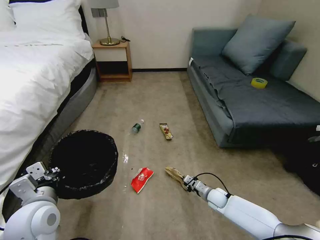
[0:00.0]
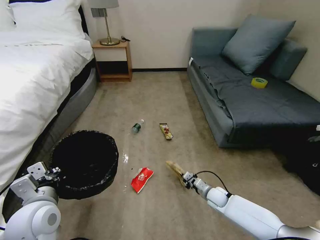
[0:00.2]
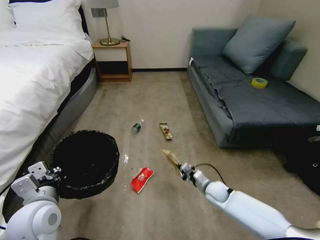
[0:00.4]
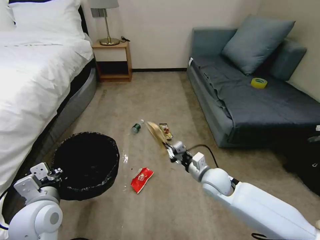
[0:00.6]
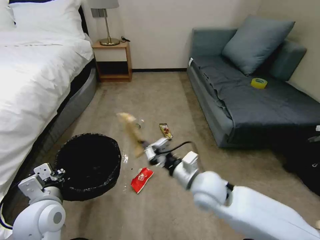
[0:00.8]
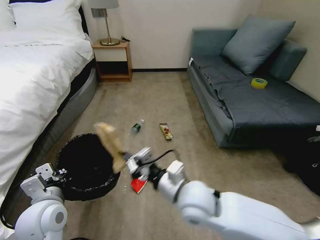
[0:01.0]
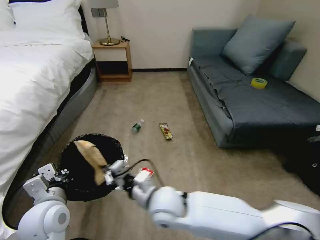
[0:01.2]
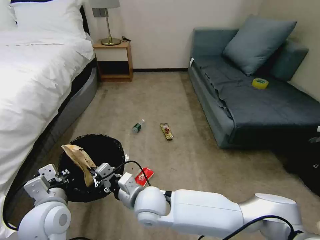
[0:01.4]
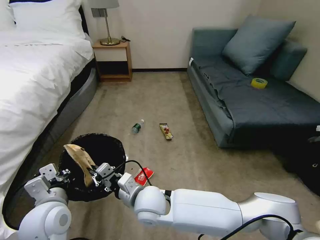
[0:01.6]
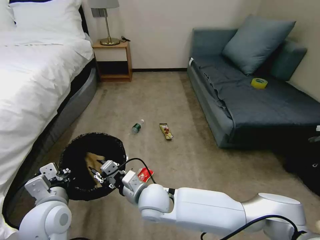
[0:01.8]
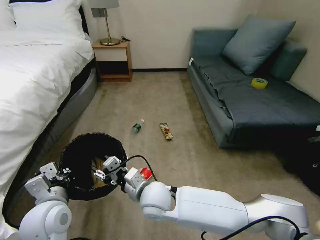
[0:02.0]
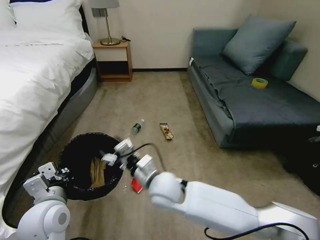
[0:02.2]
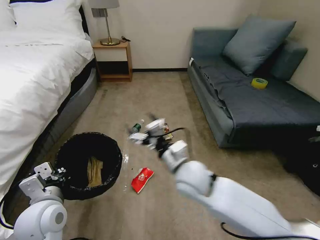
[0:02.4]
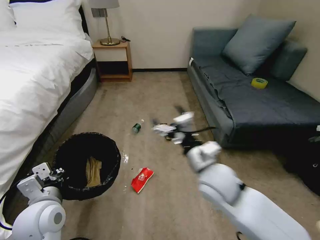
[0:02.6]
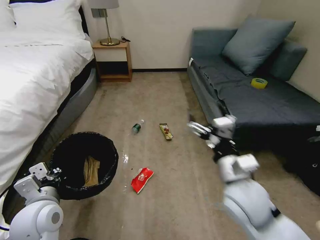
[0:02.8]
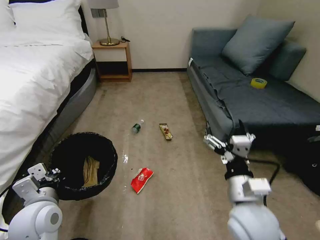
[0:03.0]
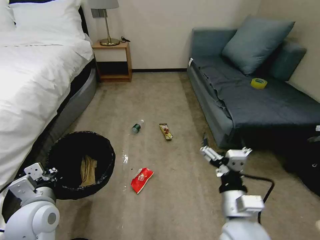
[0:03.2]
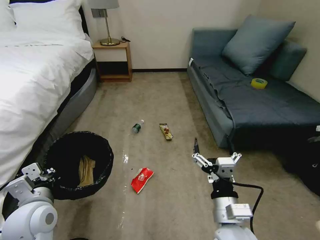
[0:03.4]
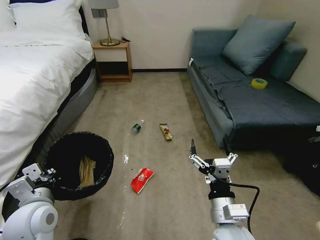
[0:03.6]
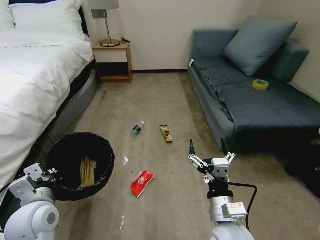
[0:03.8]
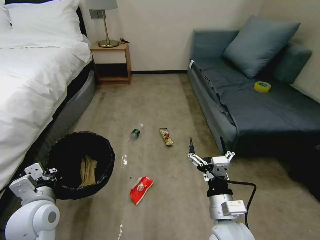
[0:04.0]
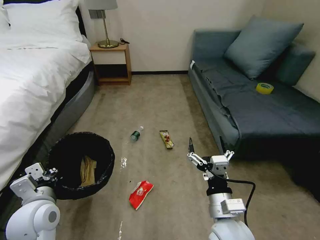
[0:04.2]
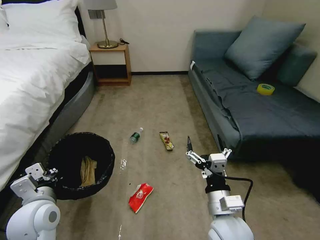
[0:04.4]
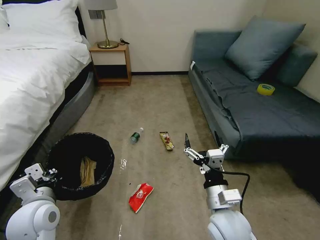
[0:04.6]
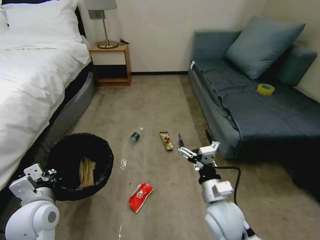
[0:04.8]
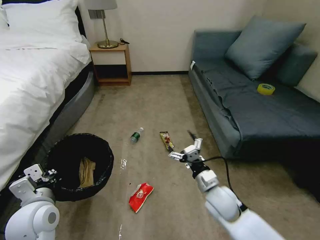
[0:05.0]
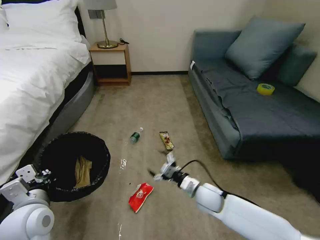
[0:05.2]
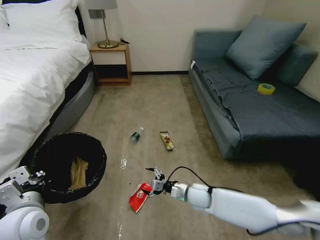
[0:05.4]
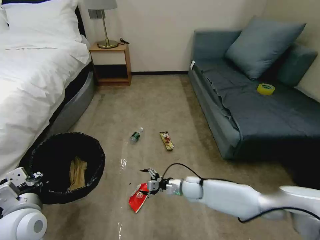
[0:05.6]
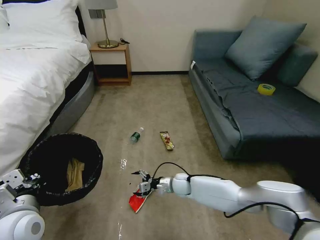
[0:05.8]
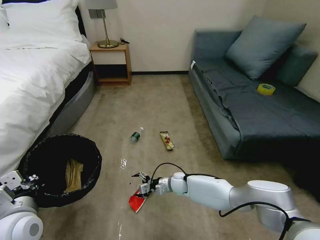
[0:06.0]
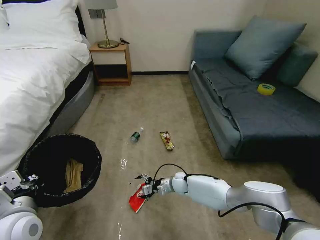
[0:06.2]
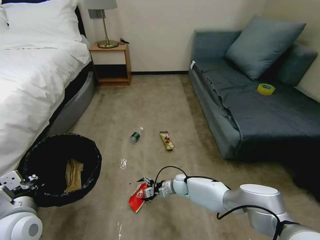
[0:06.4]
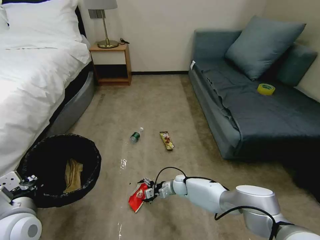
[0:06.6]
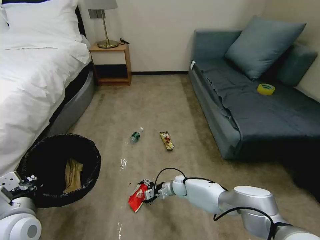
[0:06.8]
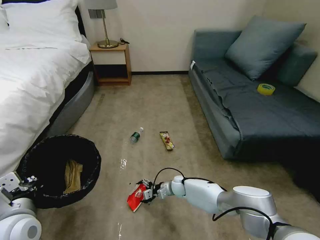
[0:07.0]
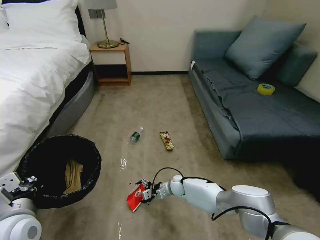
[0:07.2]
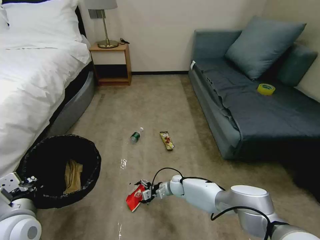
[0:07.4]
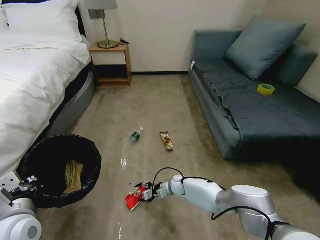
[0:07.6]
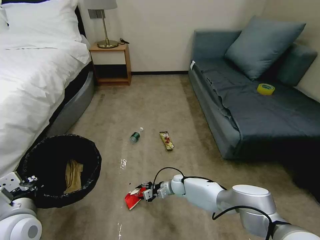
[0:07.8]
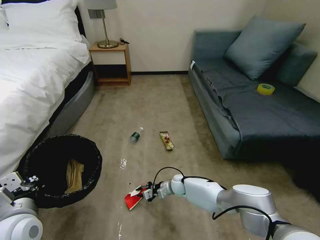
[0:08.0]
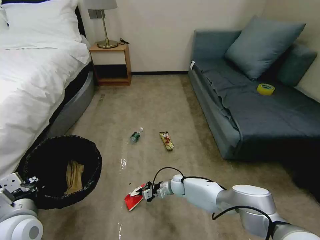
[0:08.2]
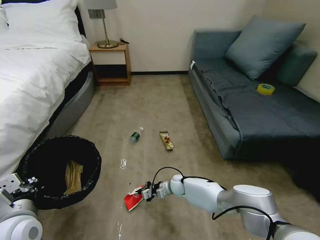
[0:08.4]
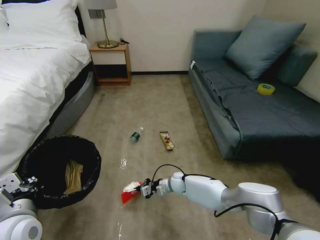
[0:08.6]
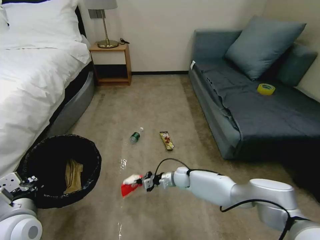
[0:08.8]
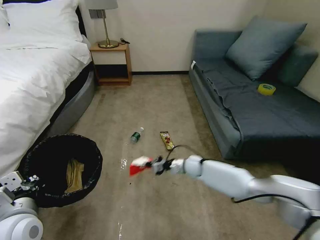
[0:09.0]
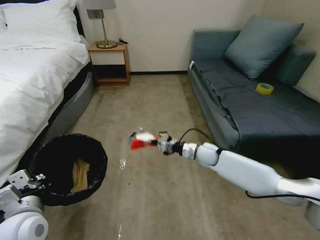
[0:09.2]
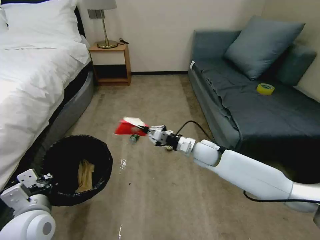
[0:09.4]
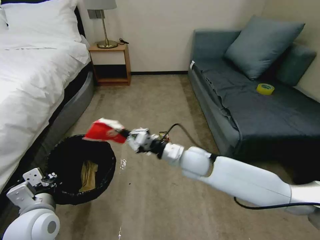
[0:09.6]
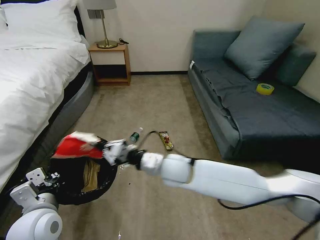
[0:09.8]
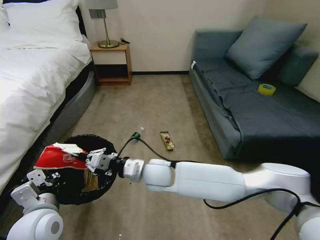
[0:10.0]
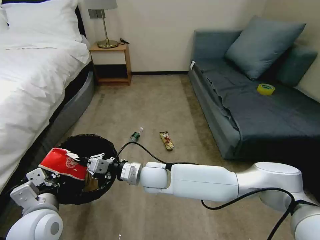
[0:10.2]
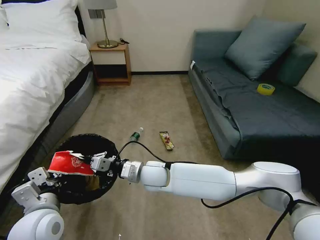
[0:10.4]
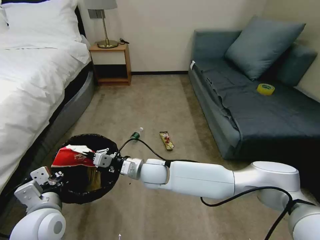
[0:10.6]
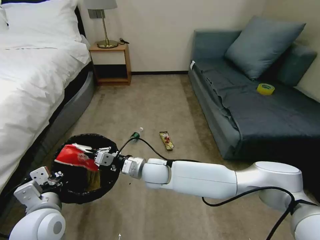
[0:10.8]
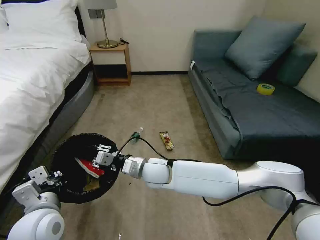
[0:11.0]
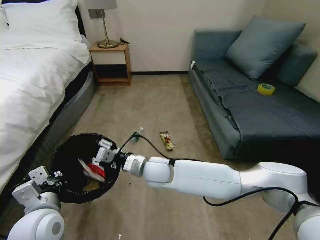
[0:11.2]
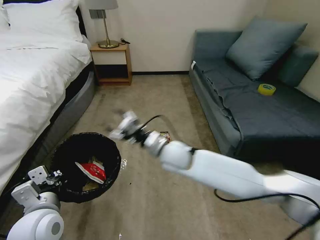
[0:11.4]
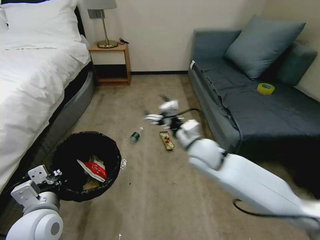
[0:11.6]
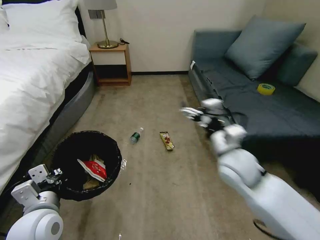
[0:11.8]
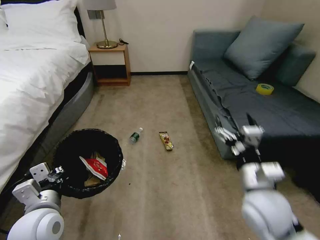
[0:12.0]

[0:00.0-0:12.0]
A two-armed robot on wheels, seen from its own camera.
Task of the whole recording: Pick up the trash bin, then pick up the garbage on the floor and place it into the trash bin.
0:00.0 to 0:01.6: The right gripper heads to the left and upward, covering some 40 cm.
0:01.6 to 0:03.0: The right gripper travels to the right by approximately 25 cm, and opens.
0:03.0 to 0:04.4: The right gripper travels downward by approximately 5 cm.
0:04.4 to 0:06.0: The right gripper moves forward and downward, some 35 cm.
0:06.0 to 0:07.6: The grippers make only small movements.
0:07.6 to 0:09.0: The right gripper travels upward and to the right by about 15 cm, and closes.
0:09.0 to 0:10.4: The right gripper heads to the left, upward and backward, covering about 25 cm.
0:10.4 to 0:12.0: The right gripper is displaced to the right and backward by roughly 30 cm, and opens.

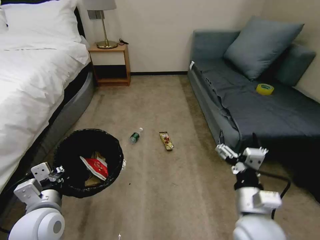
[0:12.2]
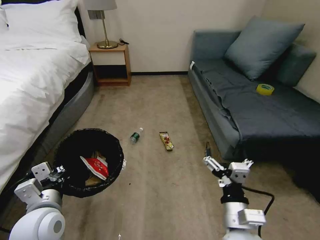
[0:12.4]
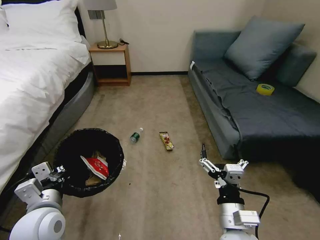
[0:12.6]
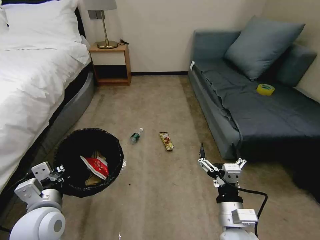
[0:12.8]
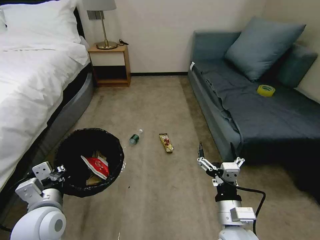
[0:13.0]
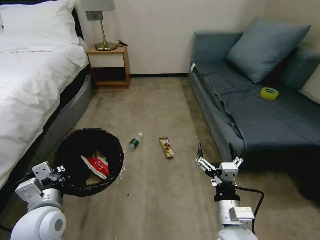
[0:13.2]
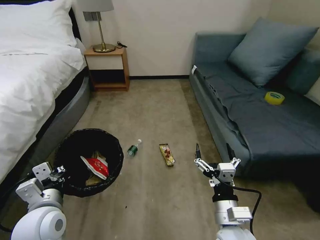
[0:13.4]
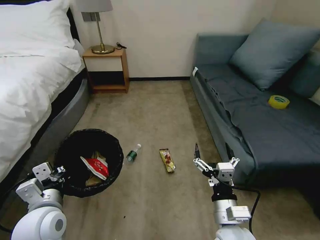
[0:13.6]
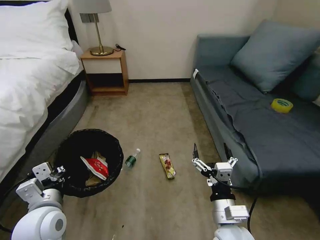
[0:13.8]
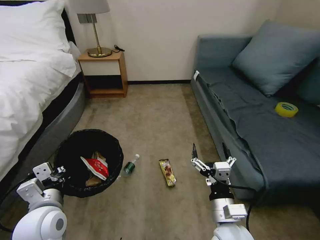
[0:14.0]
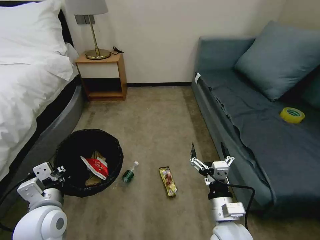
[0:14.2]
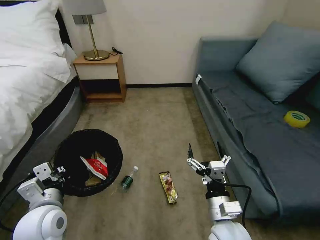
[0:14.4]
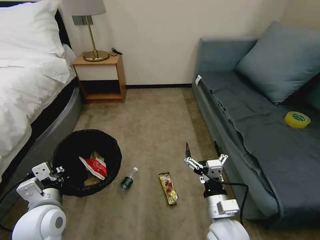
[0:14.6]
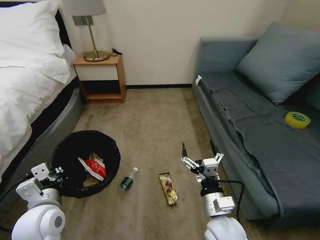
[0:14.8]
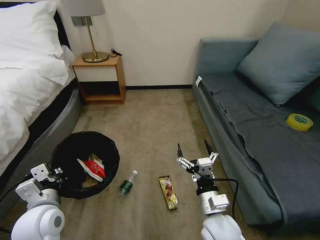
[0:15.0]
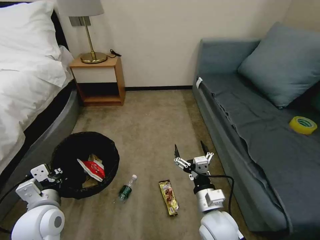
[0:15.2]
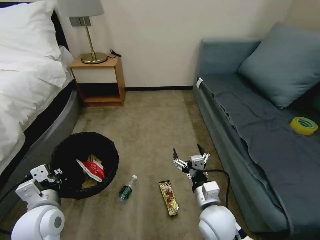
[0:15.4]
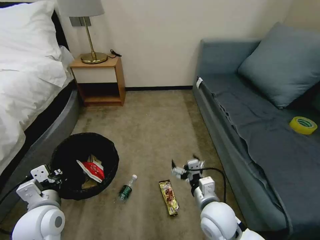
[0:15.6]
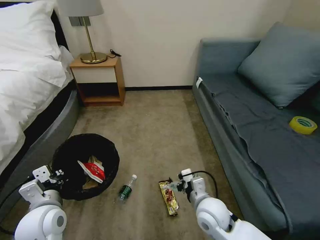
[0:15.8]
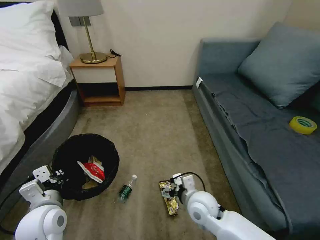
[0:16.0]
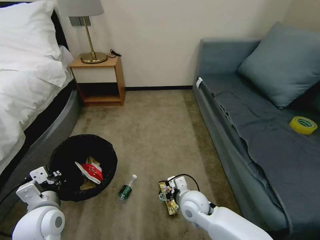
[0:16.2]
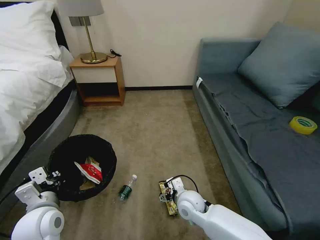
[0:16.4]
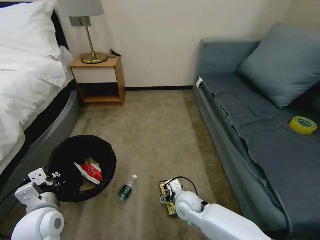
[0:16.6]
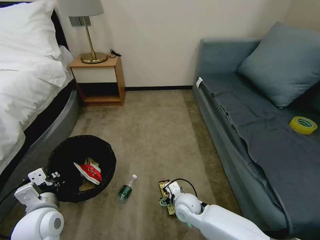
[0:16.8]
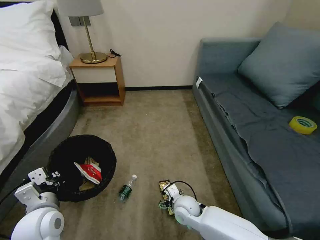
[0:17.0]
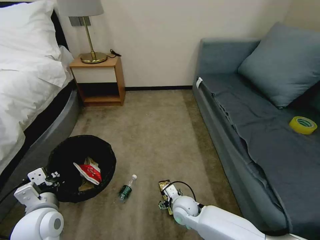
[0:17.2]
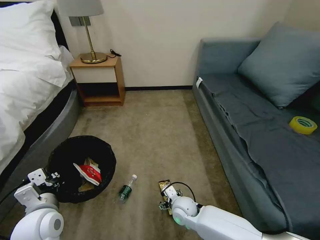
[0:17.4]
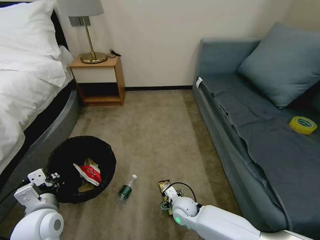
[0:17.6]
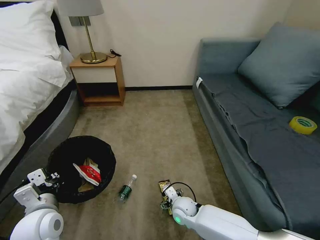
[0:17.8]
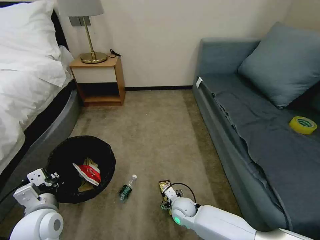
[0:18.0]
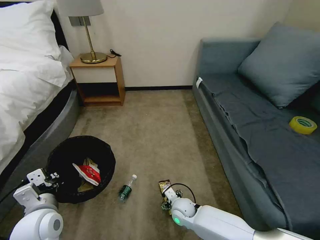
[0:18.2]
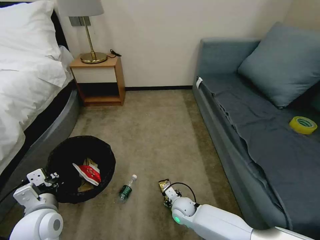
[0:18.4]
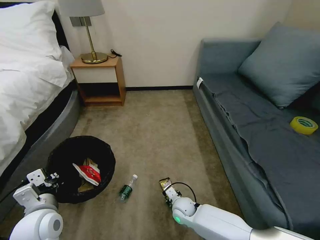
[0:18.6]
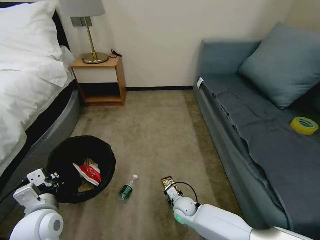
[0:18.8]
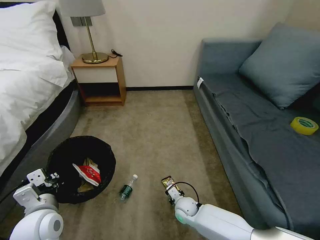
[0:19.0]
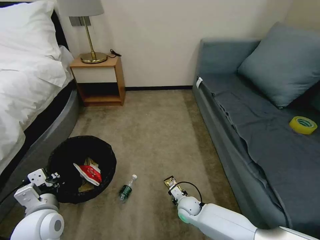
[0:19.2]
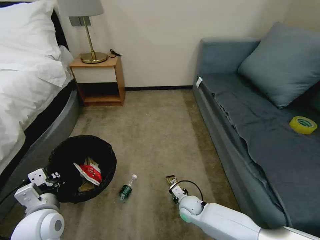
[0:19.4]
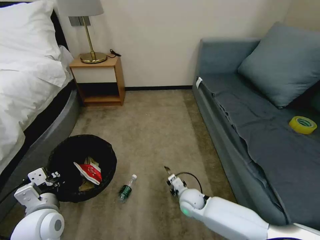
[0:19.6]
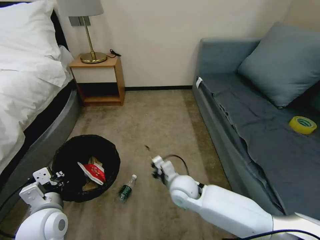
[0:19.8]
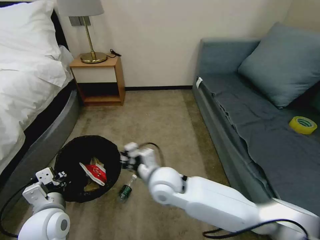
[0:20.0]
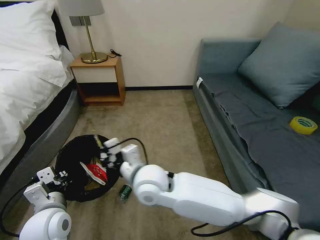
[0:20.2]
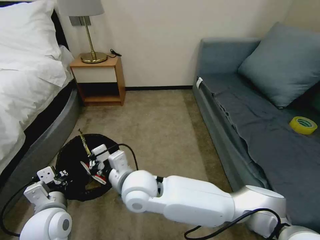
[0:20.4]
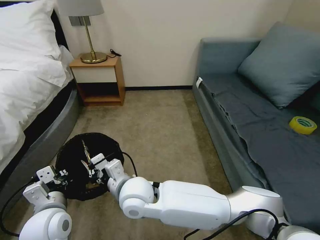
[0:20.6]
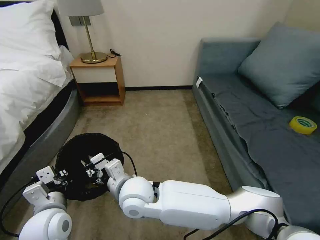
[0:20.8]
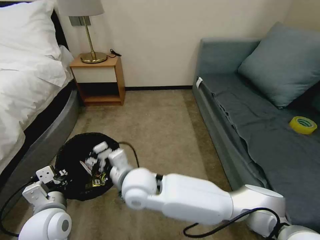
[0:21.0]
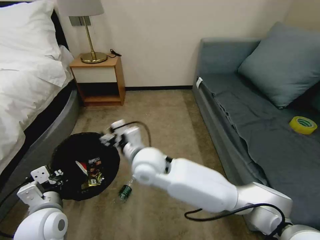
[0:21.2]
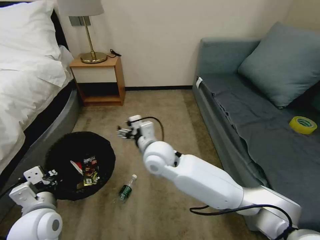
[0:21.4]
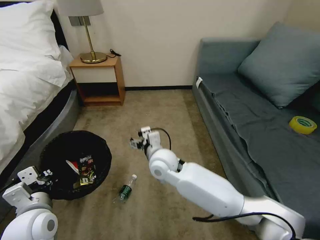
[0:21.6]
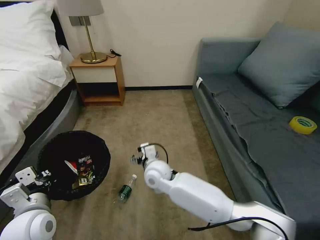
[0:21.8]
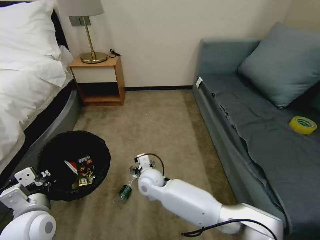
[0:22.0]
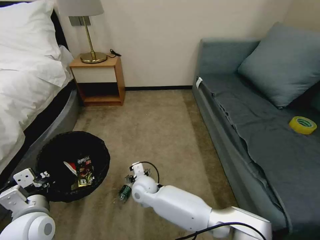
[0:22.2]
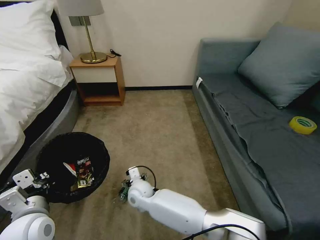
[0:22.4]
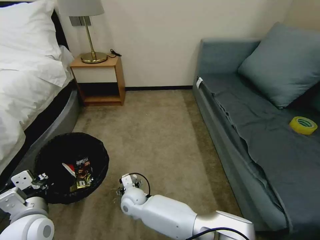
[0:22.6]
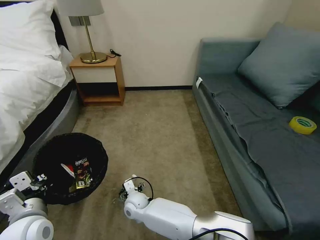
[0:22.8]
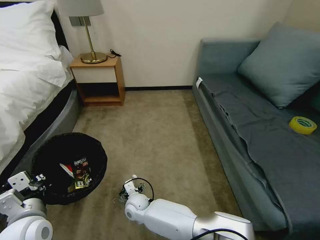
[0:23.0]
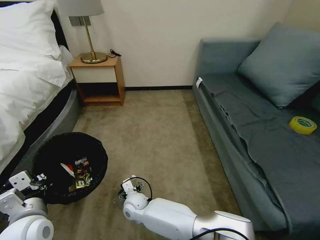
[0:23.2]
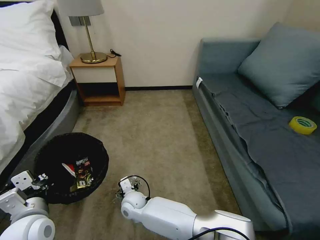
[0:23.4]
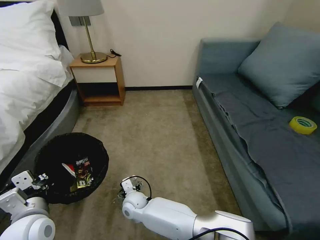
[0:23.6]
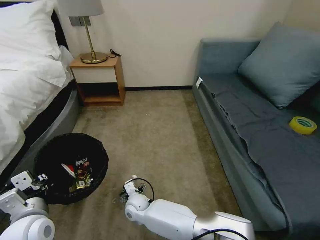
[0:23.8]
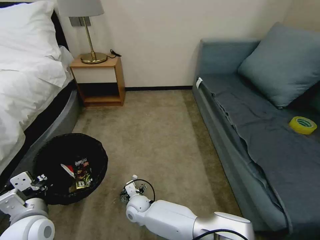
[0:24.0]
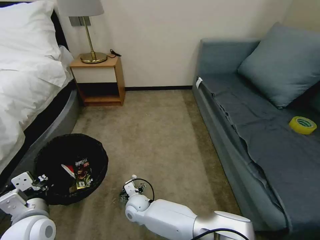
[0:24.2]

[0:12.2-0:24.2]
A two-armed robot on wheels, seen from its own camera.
Task of the whole recording: Pick up the trash bin, then pick up the garbage on the floor and place it into the trash bin.
0:12.2 to 0:13.8: The right gripper ends up approximately 5 cm from where it was.
0:15.2 to 0:16.6: The right gripper moves downward and forward, approximately 15 cm.
0:16.6 to 0:18.2: The right gripper shifts approximately 5 cm downward.
0:18.2 to 0:19.8: The right gripper moves upward, about 15 cm, and closes.
0:19.8 to 0:21.2: The right gripper heads upward and to the left, covering approximately 20 cm, and opens.
0:21.2 to 0:22.6: The right gripper goes roughly 25 cm downward.
0:22.6 to 0:24.2: The grippers make only small movements.
